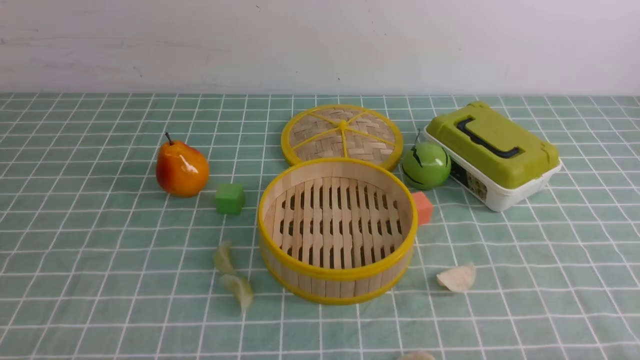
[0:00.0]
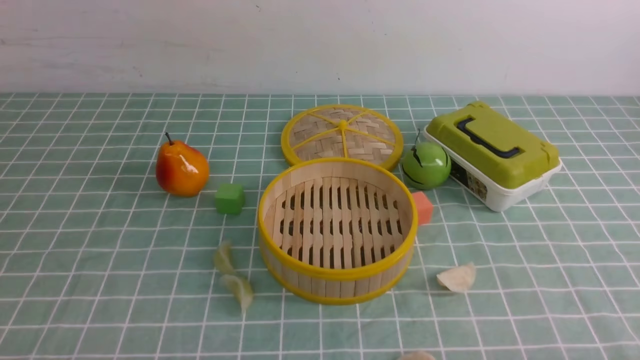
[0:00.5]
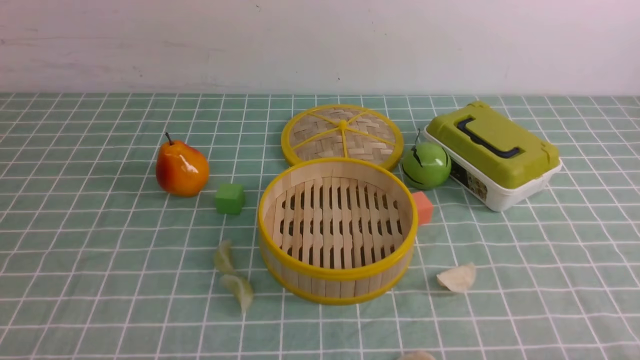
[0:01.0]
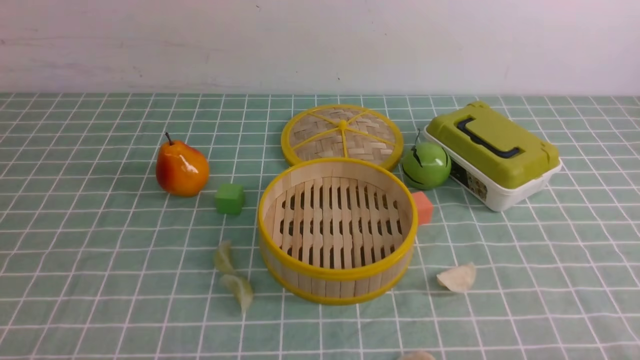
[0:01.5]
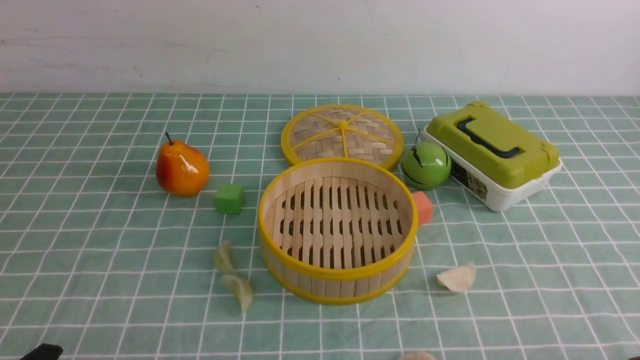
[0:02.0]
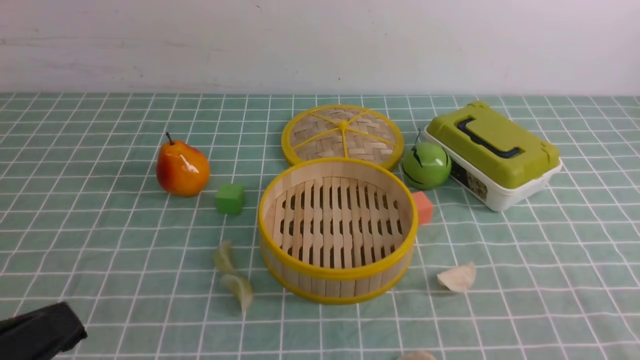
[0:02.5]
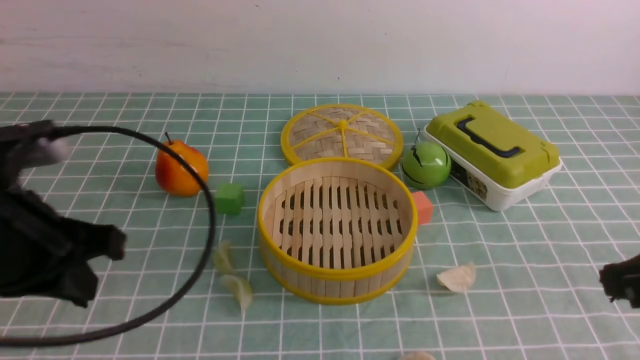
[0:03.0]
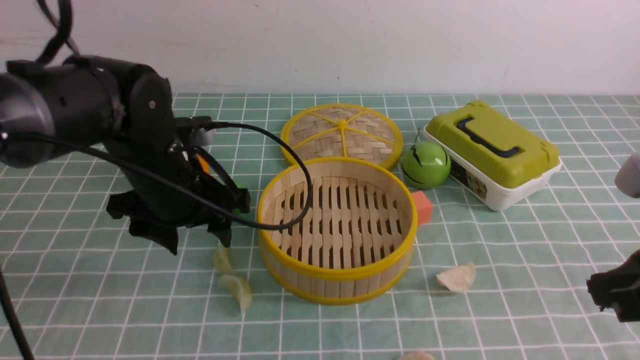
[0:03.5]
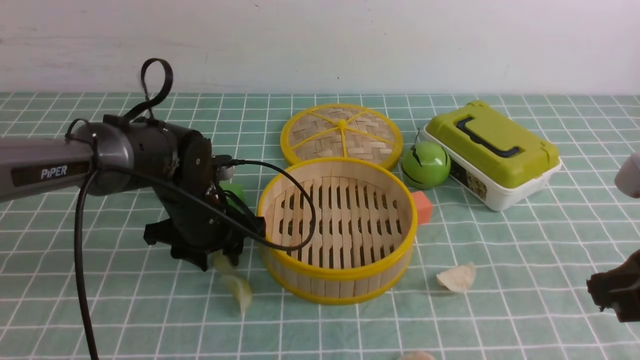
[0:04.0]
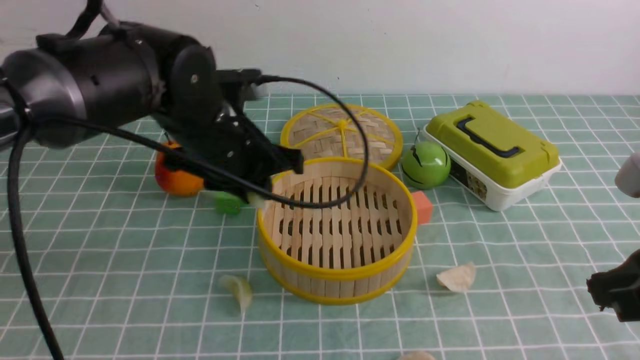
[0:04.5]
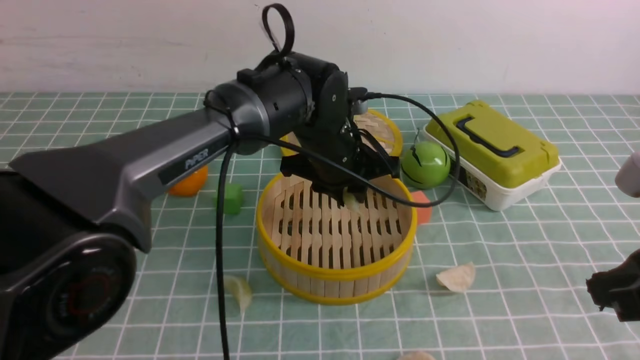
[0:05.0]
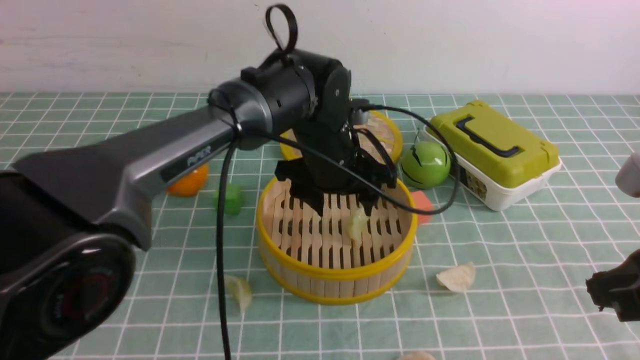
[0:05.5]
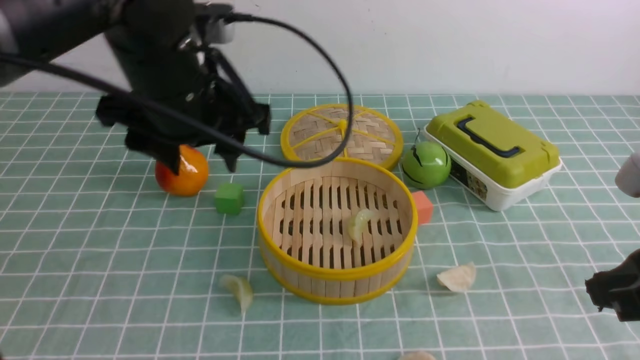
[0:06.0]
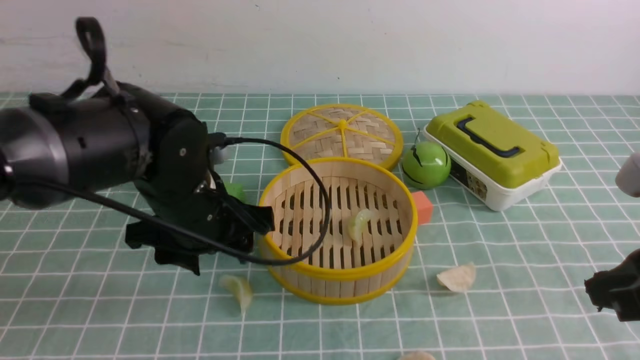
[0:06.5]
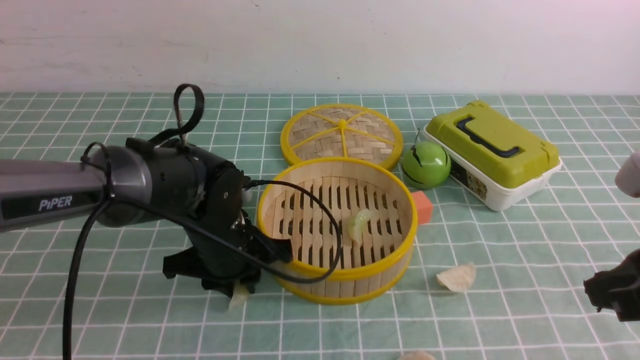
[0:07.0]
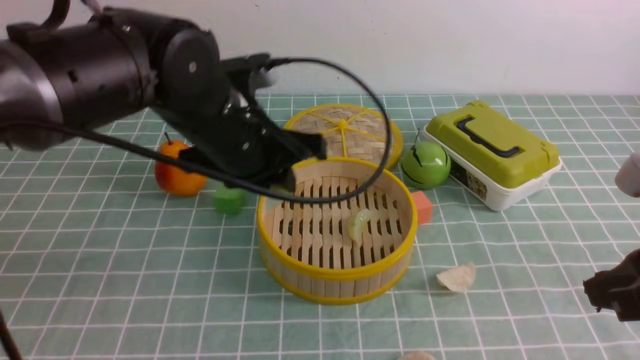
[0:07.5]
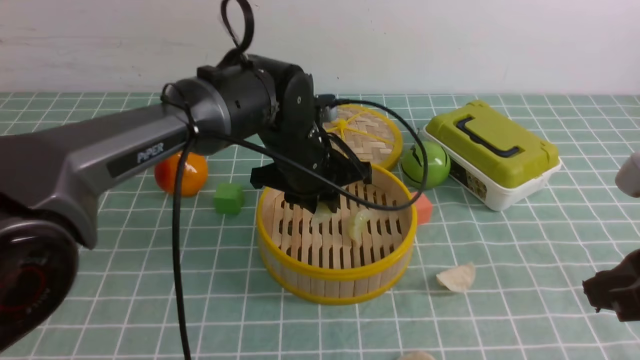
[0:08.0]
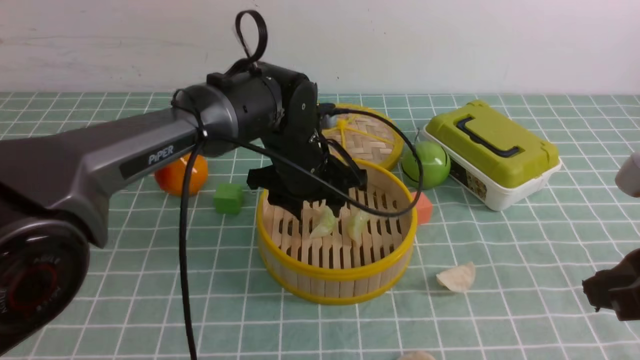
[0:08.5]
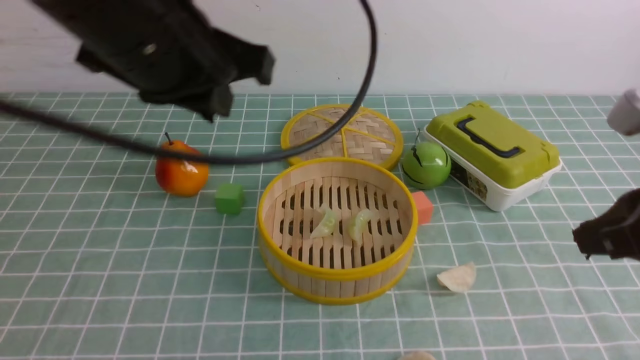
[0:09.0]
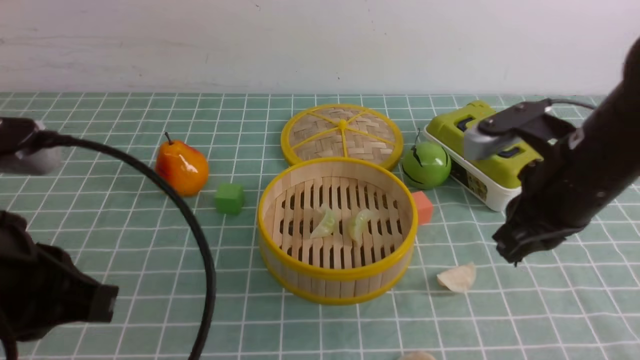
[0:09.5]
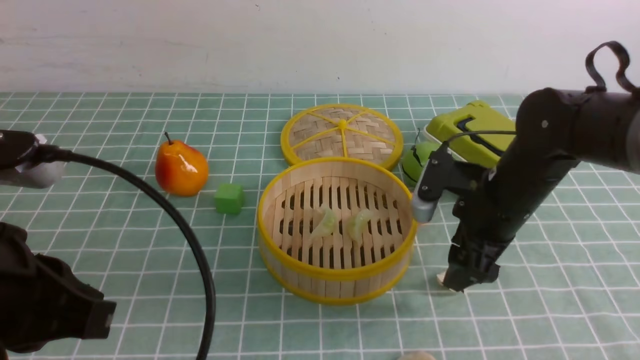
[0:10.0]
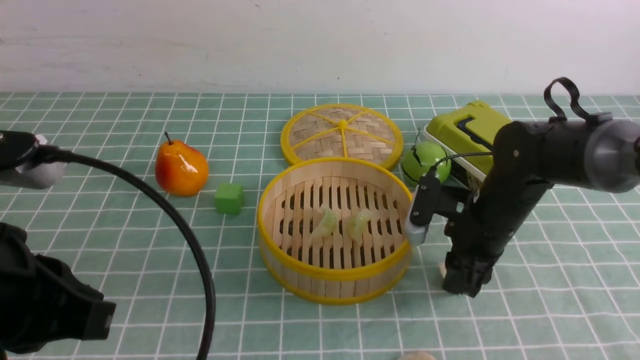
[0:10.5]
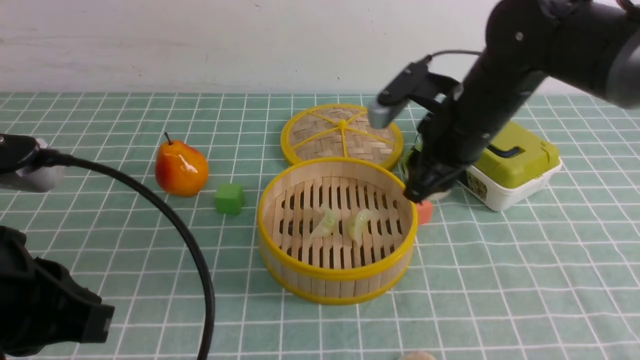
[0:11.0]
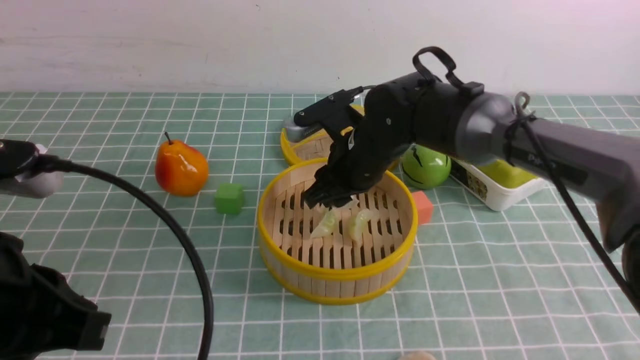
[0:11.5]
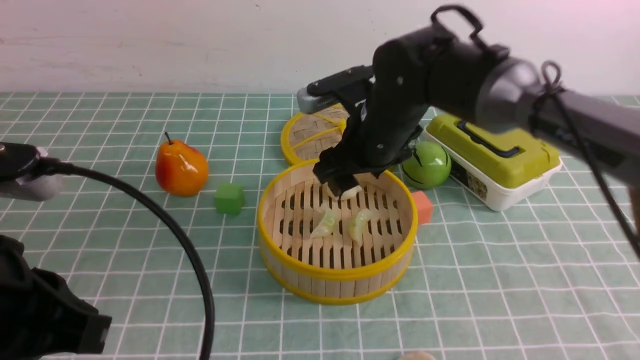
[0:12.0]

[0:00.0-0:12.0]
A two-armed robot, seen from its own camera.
Task of the whole recording: put the dumplings into the steamer on the table with the blue tablecloth.
Step, 0:00.0 to 0:04.0: use the left arm to grab a dumpling.
Step, 0:05.0 to 0:05.5: use the left arm to put the dumpling into the steamer.
Step, 0:06.0 to 0:07.0: use the left arm to grab a dumpling.
Step, 0:07.5 to 0:08.5: use the left arm to put the dumpling into the steamer.
Step, 0:09.0 to 0:10.5: use the right arm to grab a dumpling.
Step, 0:11.0 to 0:12.0: use the right arm to put the dumpling into the steamer.
0:02.0 to 0:04.0: The right gripper is displaced upward and forward by about 20 cm, and closes up. The left gripper goes roughly 30 cm forward.
0:04.0 to 0:06.0: The left gripper heads upward, covering approximately 15 cm.
0:06.0 to 0:08.0: The left gripper swings up and down, about 15 cm each way, with 2 reversals, and closes up.
0:08.0 to 0:10.0: The right gripper heads forward, downward and to the left, covering roughly 25 cm, and opens up, while the left gripper travels backward and to the left by roughly 30 cm, and closes its fingers.
0:10.0 to 0:12.0: The right gripper shifts roughly 15 cm to the left and upward, and closes and opens again.

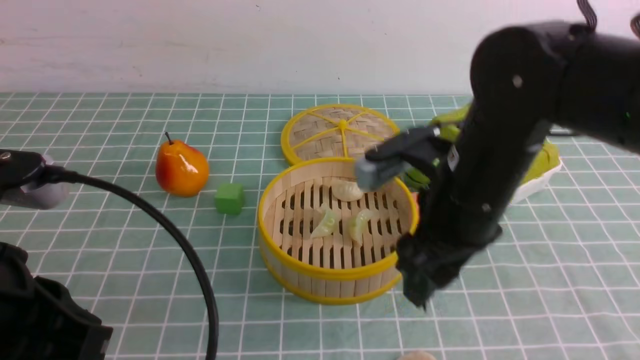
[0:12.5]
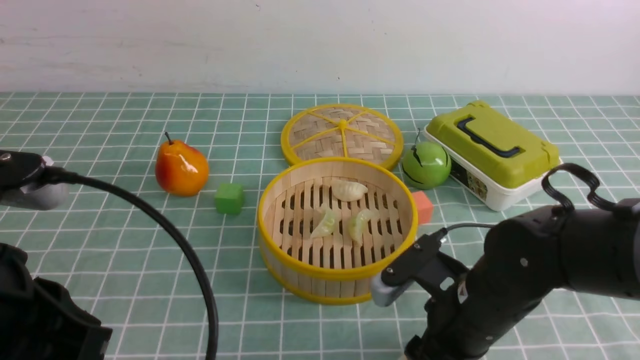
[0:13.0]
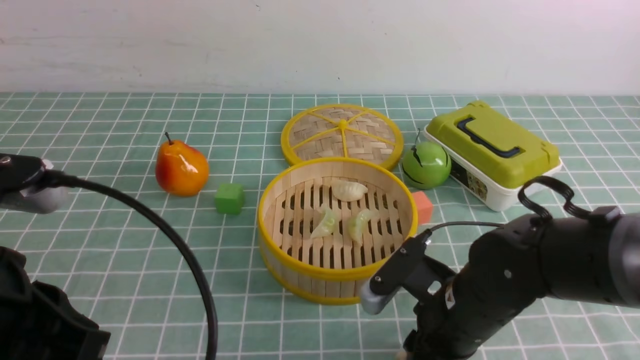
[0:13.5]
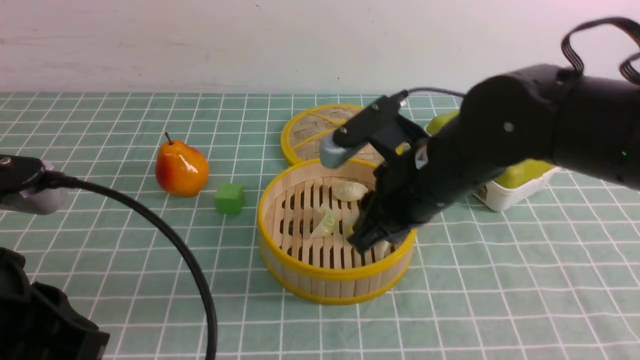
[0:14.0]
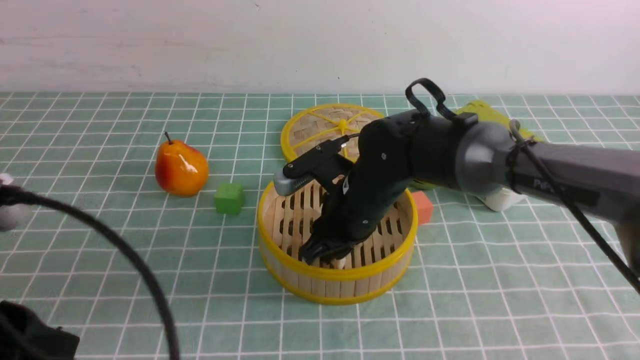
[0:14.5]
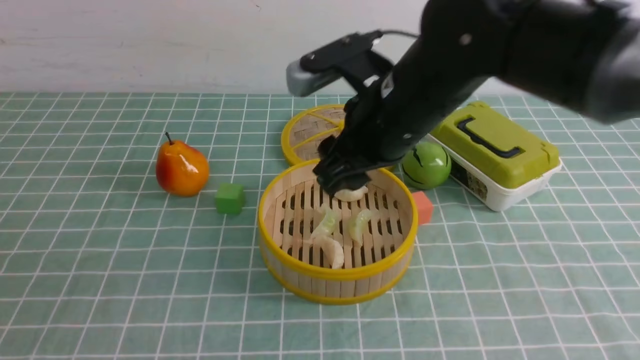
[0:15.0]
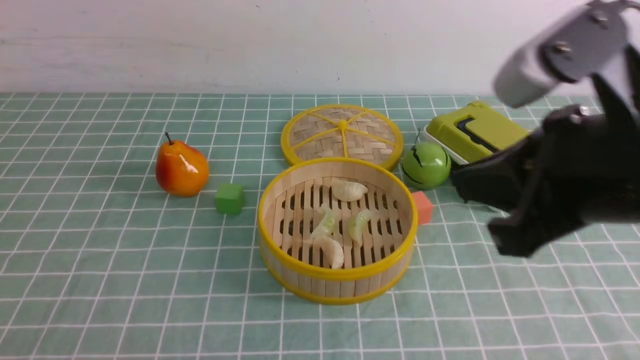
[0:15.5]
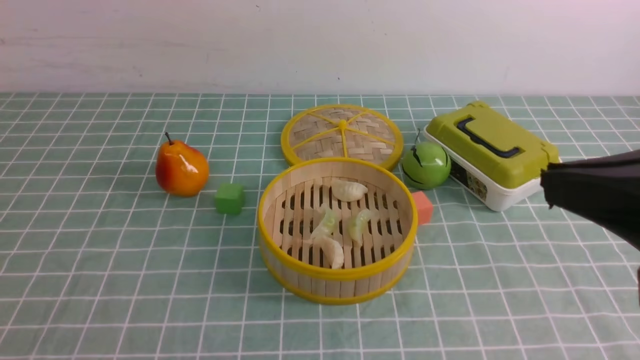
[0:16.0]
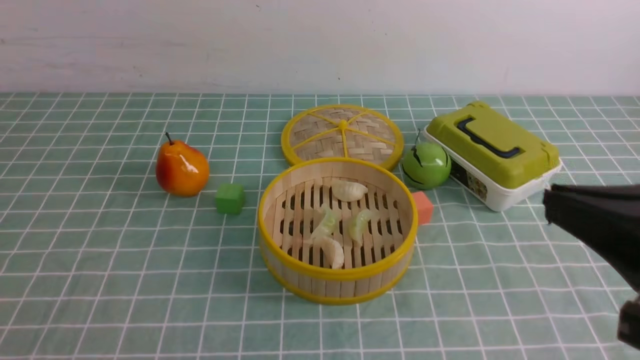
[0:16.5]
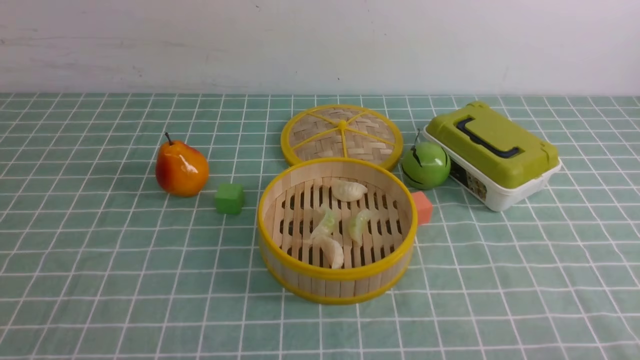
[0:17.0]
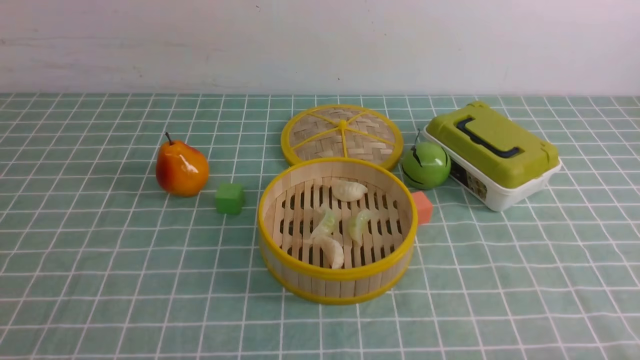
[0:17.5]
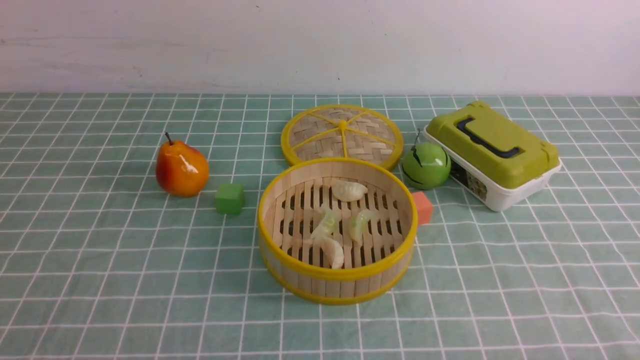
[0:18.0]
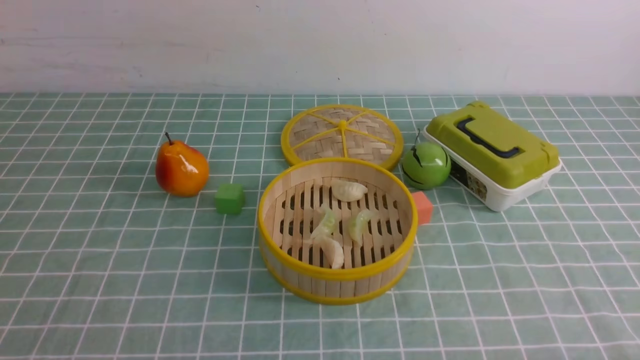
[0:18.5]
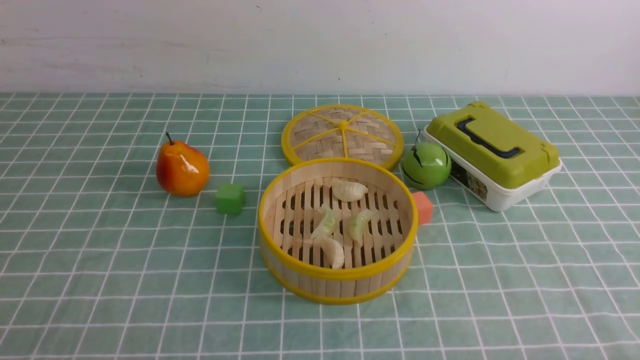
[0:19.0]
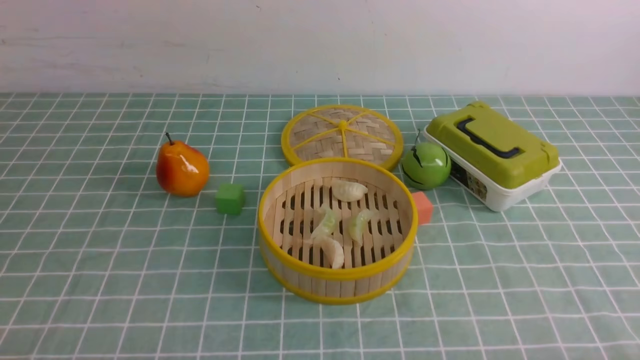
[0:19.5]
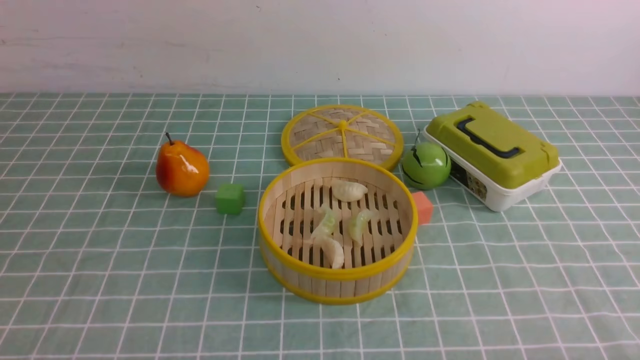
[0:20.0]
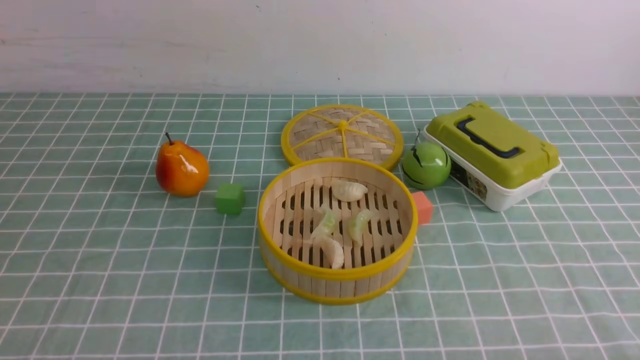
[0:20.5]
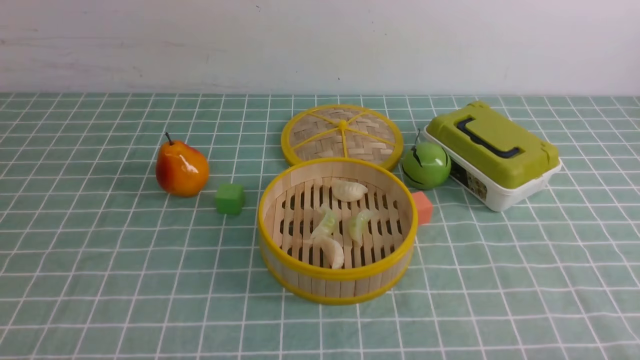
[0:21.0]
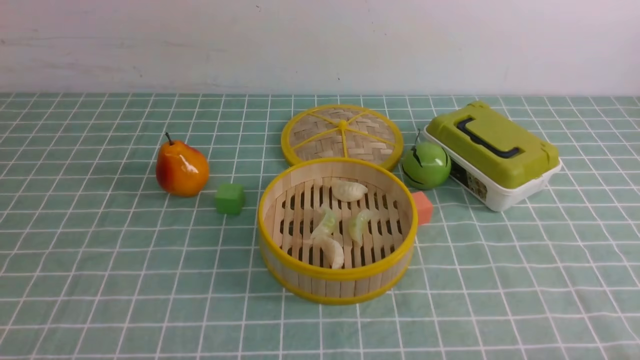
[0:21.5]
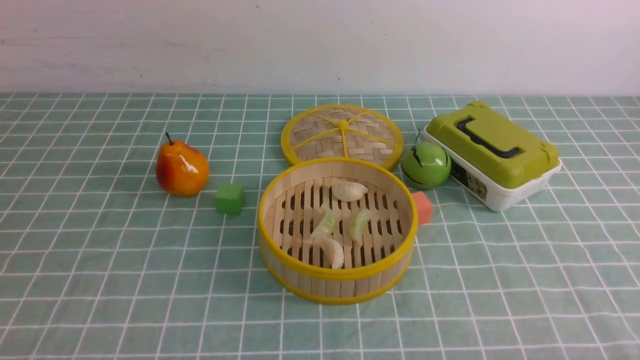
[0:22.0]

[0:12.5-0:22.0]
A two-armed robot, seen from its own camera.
Task of the whole recording: put the dumplings into the steamer on the table with the blue tablecloth.
Step, 0:12.5 to 0:13.5: use the right arm to grab a dumpling.
Step, 0:14.0 to 0:15.0: use the right arm to put the dumpling into the steamer.
0:12.5 to 0:14.5: The right gripper heads forward, to the left and downward, covering some 10 cm.
0:14.5 to 0:16.5: The left gripper heads backward and to the left, covering approximately 10 cm; the right gripper goes some 35 cm backward, to the right and upward, and closes.
0:16.5 to 0:18.0: The right gripper goes approximately 20 cm downward and to the right.
0:20.0 to 0:22.0: Neither gripper changes place.
